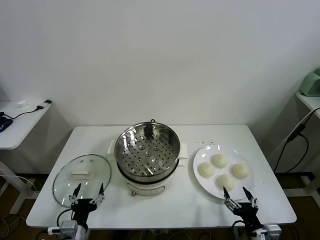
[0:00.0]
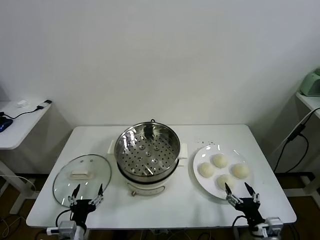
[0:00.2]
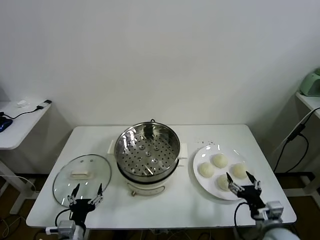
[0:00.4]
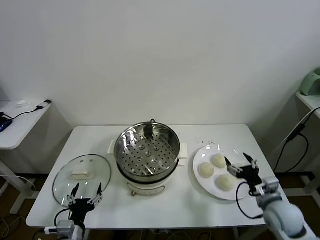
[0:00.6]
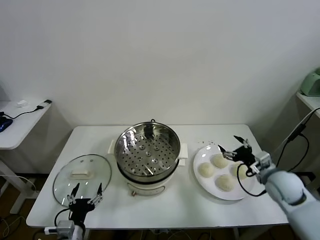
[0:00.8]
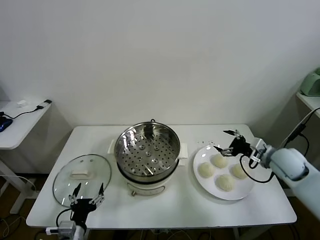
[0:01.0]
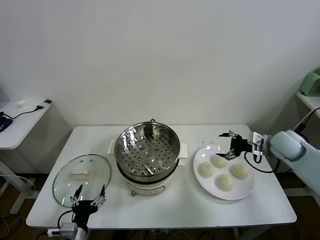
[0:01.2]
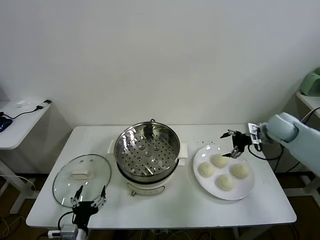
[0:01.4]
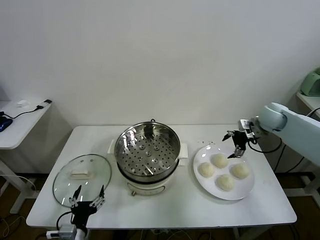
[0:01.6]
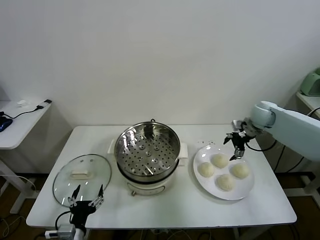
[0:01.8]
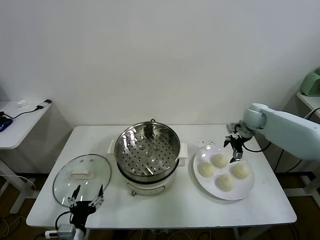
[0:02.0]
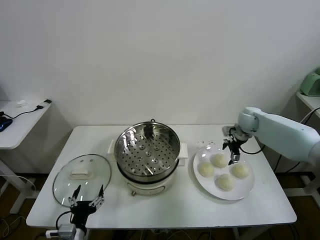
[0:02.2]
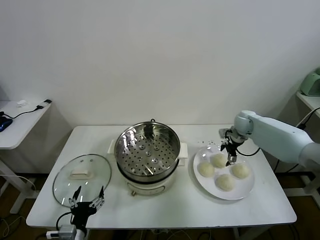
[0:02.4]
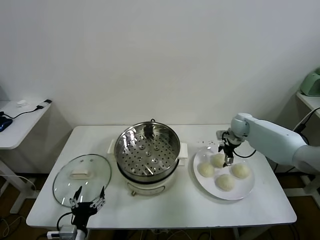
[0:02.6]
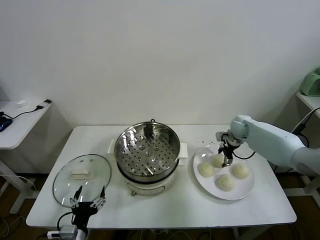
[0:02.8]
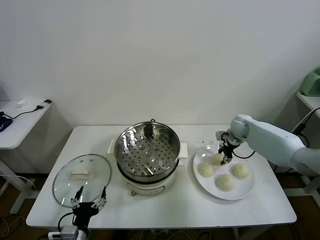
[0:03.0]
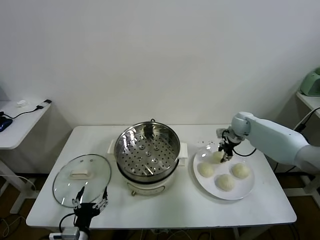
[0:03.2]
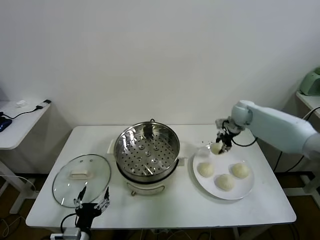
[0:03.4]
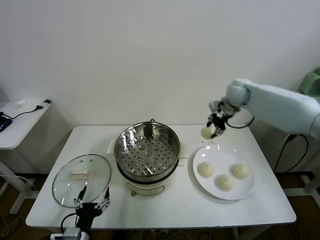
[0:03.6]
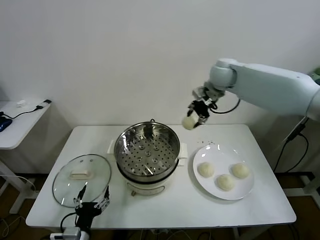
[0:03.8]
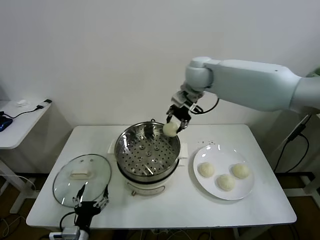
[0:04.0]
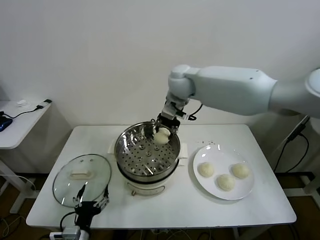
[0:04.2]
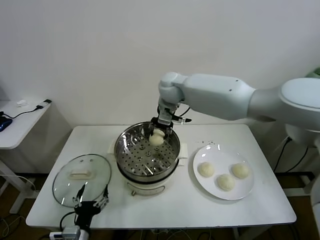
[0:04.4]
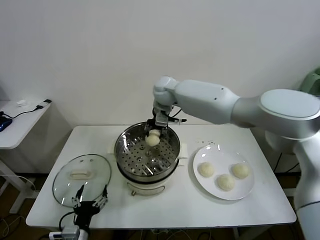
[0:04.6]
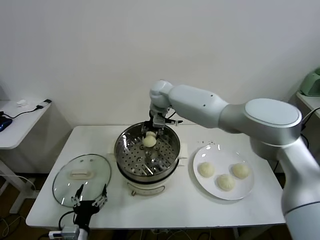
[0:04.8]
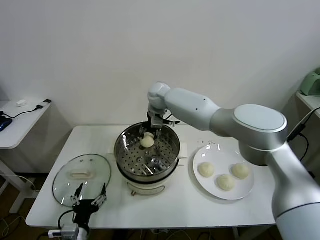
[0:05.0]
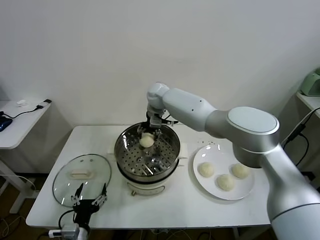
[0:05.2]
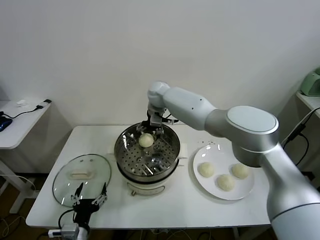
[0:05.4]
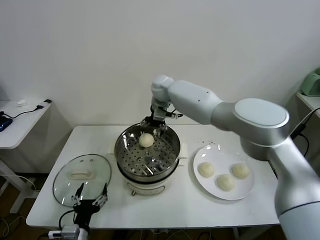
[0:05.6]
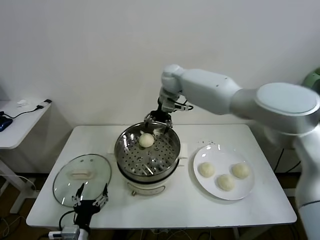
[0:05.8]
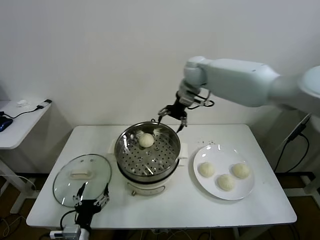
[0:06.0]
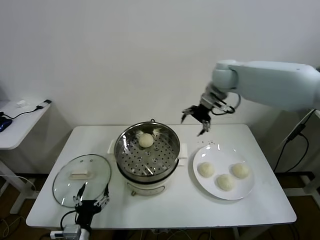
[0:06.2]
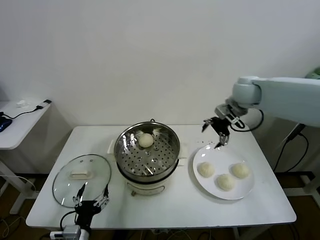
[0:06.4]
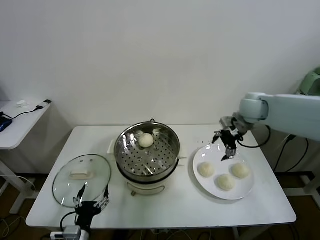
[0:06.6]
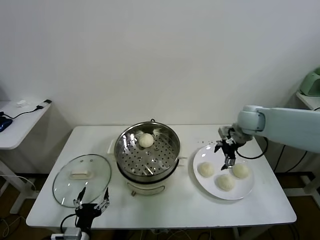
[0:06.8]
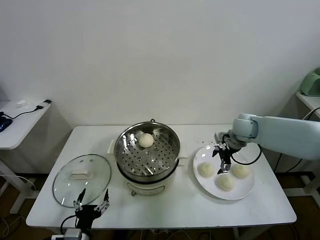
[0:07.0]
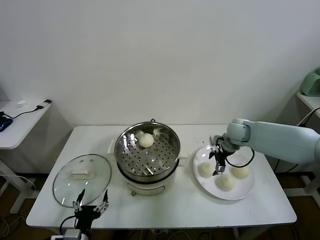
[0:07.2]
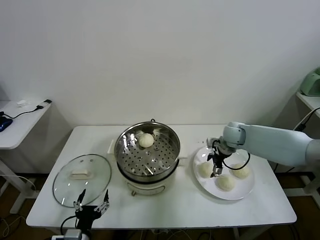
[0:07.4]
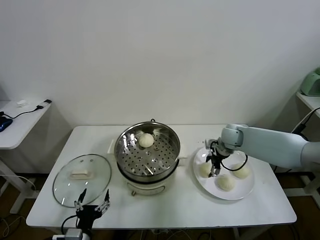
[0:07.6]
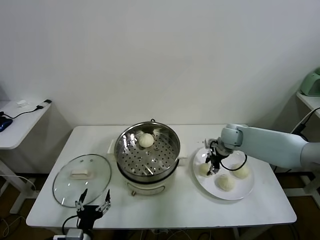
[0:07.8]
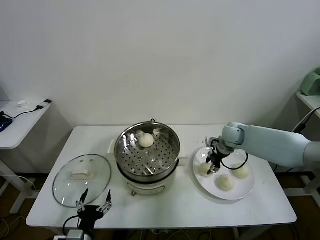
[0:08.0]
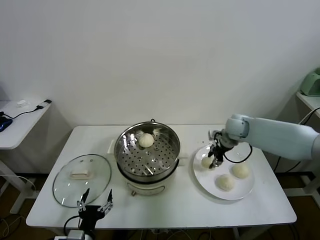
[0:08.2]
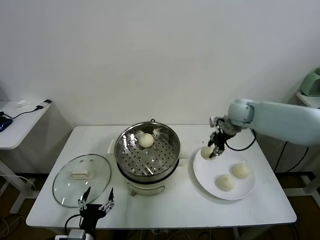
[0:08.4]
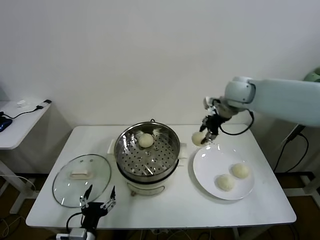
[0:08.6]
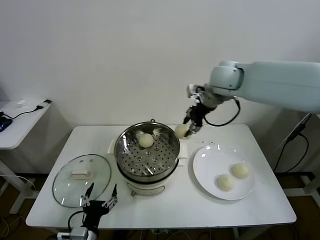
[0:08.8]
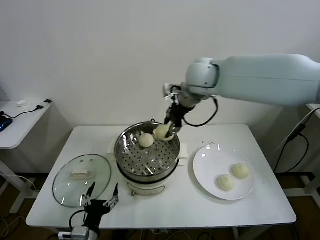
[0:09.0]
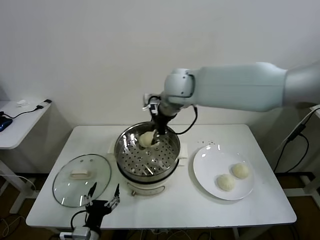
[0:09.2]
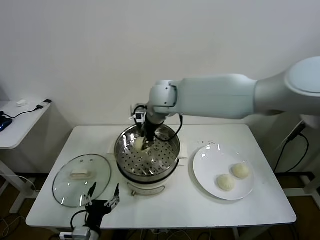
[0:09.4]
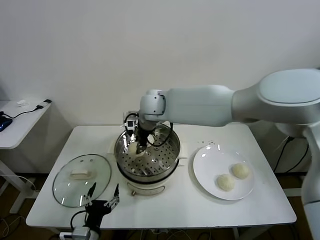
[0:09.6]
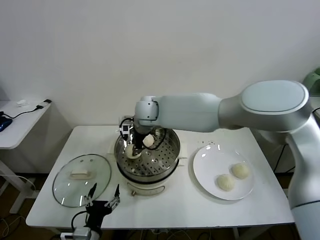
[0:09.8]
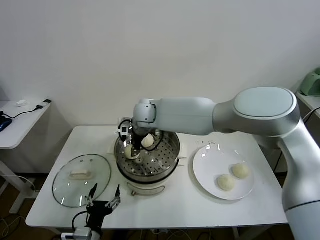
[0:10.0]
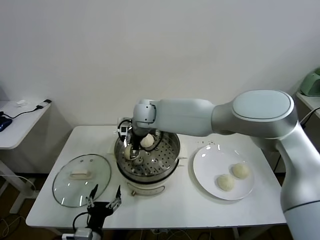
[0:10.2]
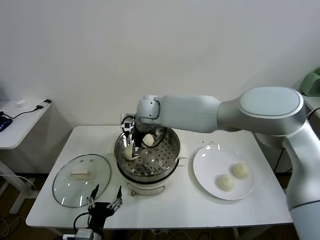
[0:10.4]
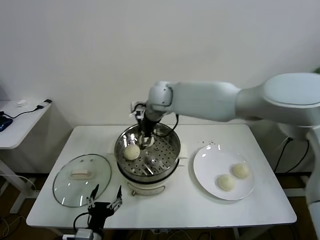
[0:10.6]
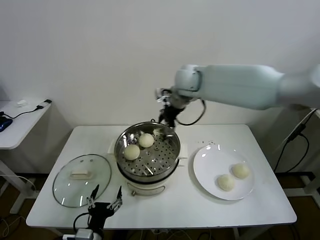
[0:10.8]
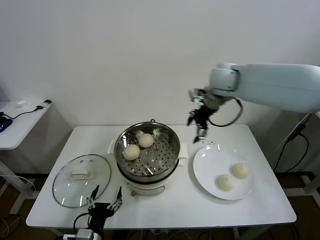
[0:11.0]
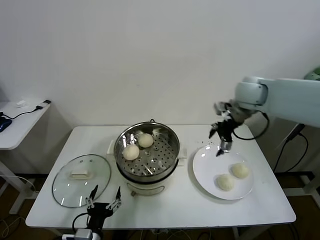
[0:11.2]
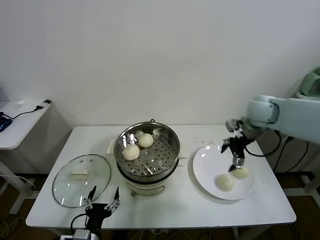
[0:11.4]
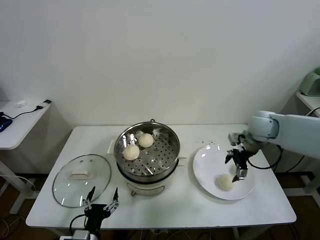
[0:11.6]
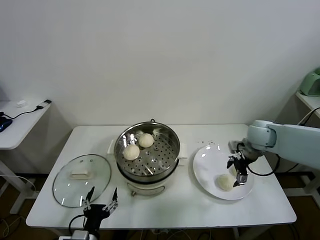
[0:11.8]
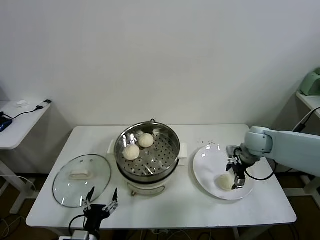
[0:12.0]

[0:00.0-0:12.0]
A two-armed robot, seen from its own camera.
Task of the whole recording: take steamed baozi put them in steamer.
Step, 0:00.0 to 0:02.8: Grasp the baozi in the plate with right gripper.
Step, 0:03.0 to 0:05.2: Place the baozi on the steamer with right gripper.
Step, 0:05.6 to 0:07.6: Grasp the baozi in the plate with right gripper.
Step, 0:07.8 to 0:10.2: Place the baozi on the steamer with right gripper.
0:01.6 to 0:03.0: The right gripper travels downward by about 10 cm, and closes its fingers.
0:03.0 to 0:04.4: The right gripper goes approximately 35 cm to the left and upward.
0:04.4 to 0:06.0: The right gripper shifts some 15 cm to the right, and opens its fingers.
0:06.0 to 0:07.6: The right gripper goes approximately 25 cm downward and to the right, and closes its fingers.
0:07.6 to 0:09.0: The right gripper goes roughly 35 cm upward and to the left, and closes.
0:09.0 to 0:10.4: The right gripper is displaced downward and to the left by roughly 15 cm, and opens its fingers.
0:10.4 to 0:12.0: The right gripper travels to the right by some 35 cm.

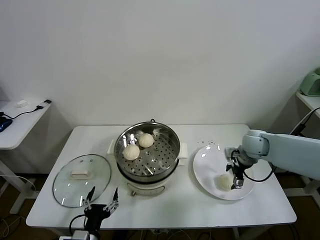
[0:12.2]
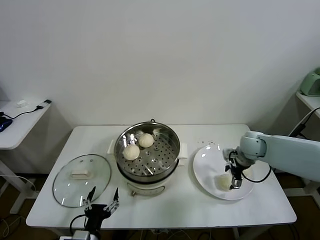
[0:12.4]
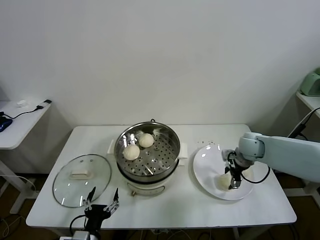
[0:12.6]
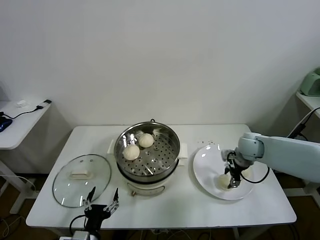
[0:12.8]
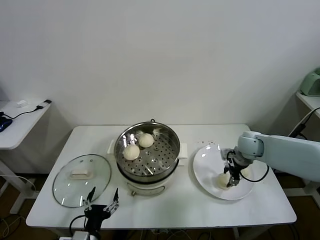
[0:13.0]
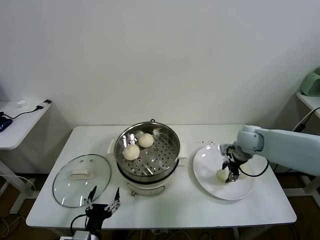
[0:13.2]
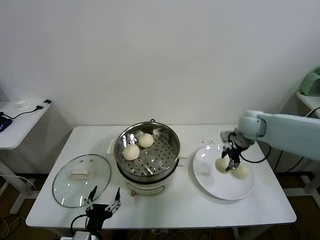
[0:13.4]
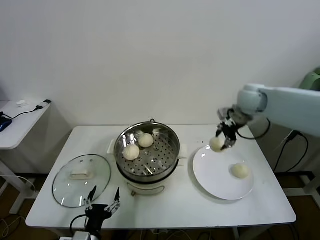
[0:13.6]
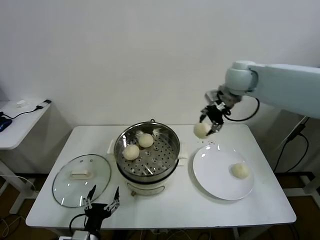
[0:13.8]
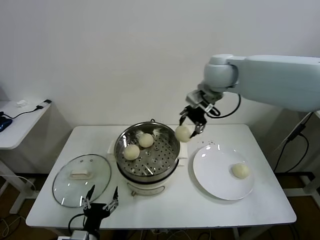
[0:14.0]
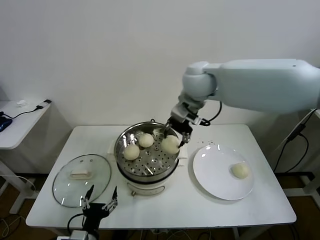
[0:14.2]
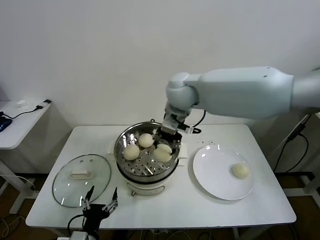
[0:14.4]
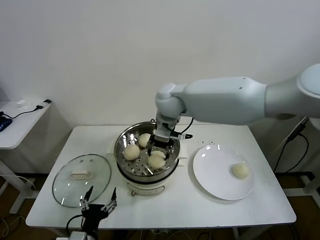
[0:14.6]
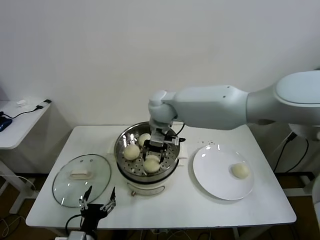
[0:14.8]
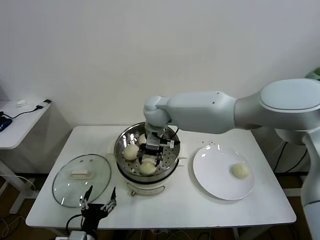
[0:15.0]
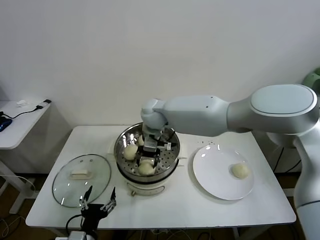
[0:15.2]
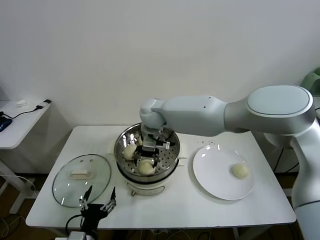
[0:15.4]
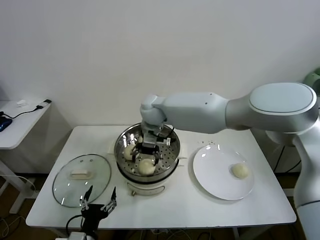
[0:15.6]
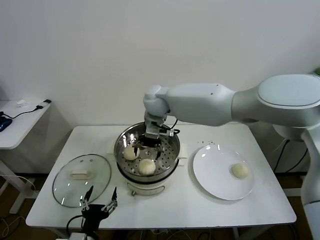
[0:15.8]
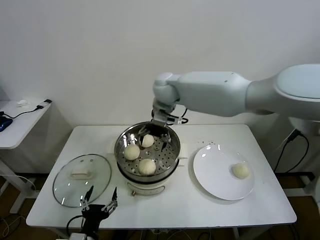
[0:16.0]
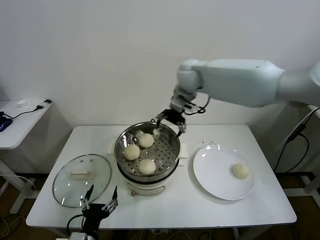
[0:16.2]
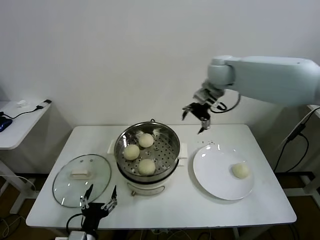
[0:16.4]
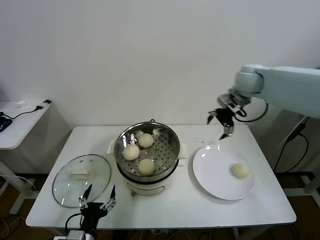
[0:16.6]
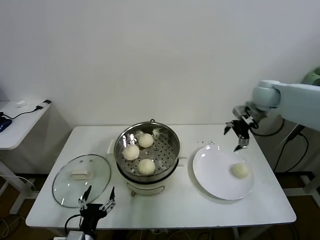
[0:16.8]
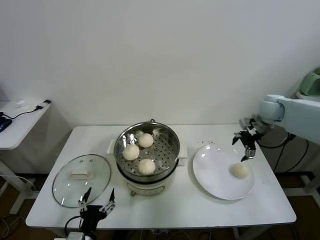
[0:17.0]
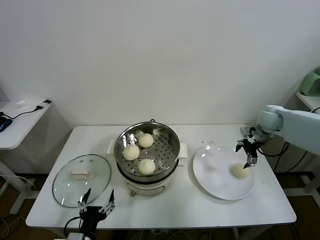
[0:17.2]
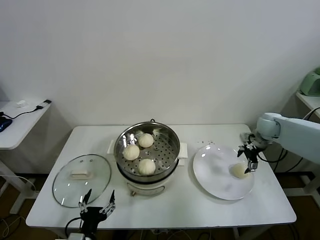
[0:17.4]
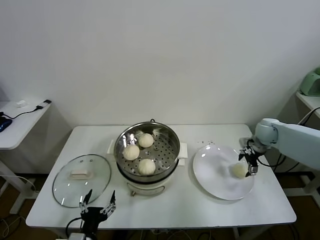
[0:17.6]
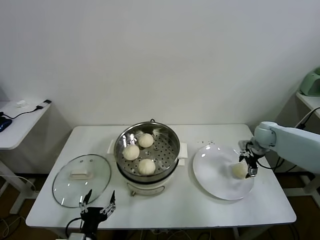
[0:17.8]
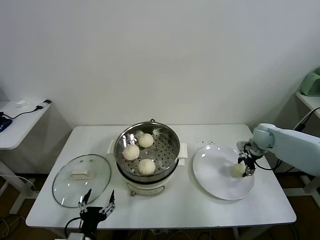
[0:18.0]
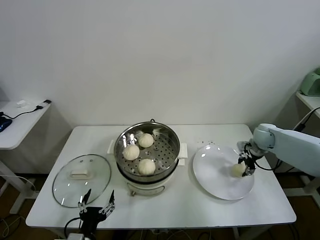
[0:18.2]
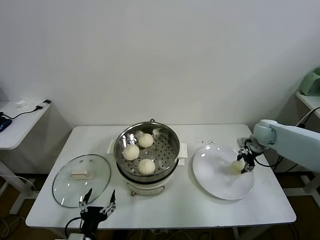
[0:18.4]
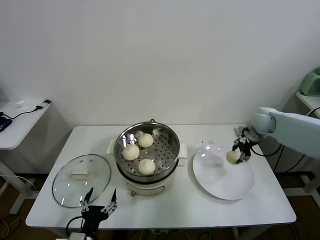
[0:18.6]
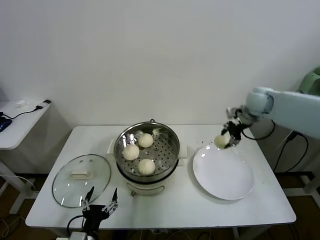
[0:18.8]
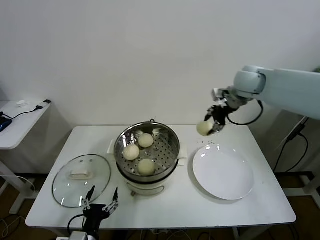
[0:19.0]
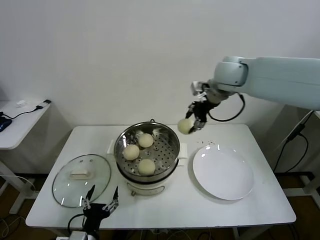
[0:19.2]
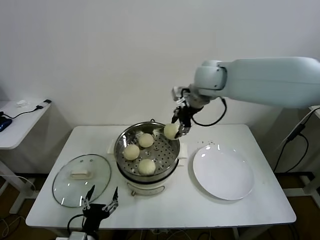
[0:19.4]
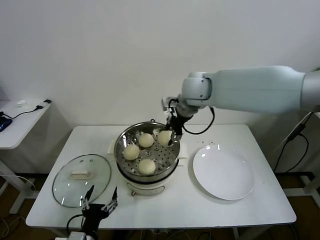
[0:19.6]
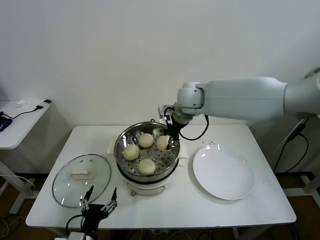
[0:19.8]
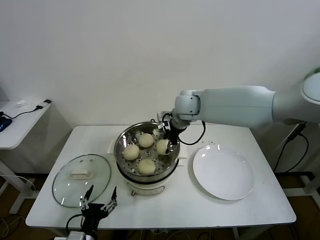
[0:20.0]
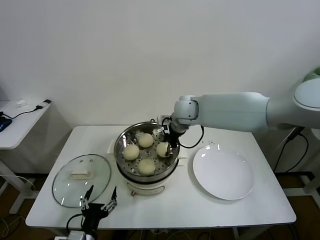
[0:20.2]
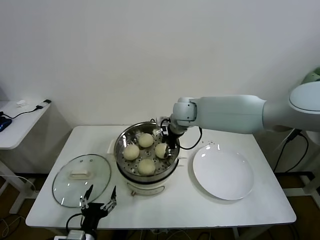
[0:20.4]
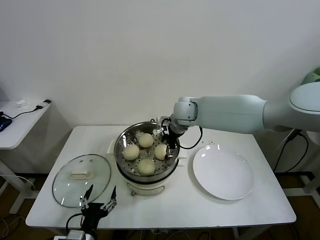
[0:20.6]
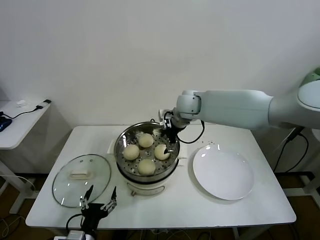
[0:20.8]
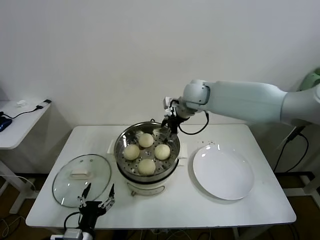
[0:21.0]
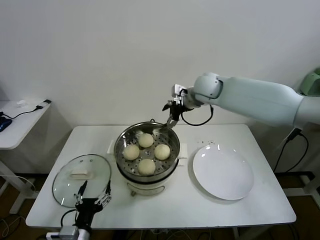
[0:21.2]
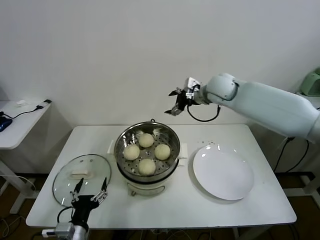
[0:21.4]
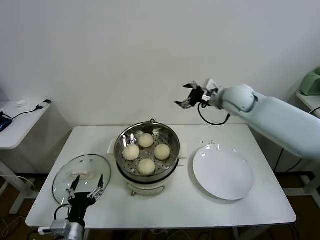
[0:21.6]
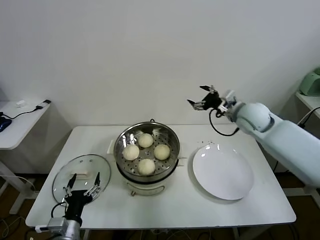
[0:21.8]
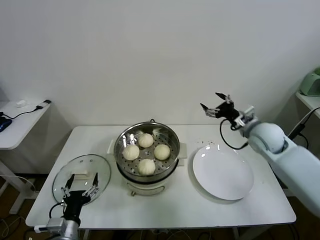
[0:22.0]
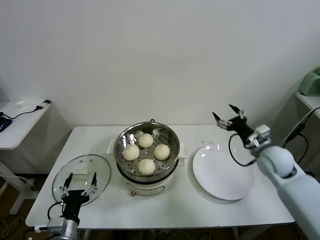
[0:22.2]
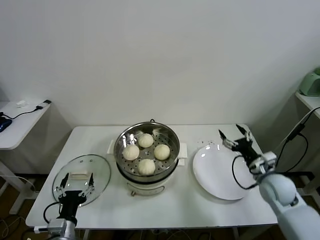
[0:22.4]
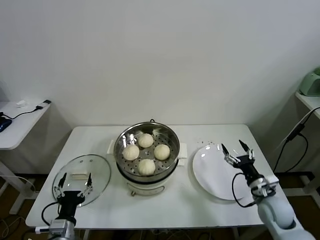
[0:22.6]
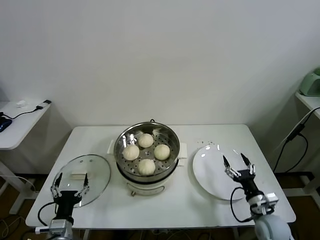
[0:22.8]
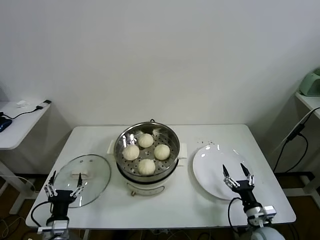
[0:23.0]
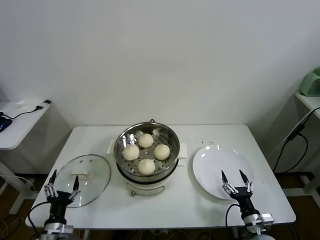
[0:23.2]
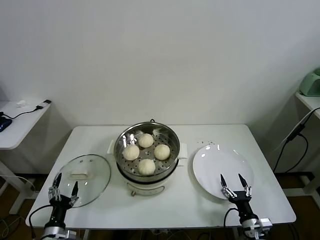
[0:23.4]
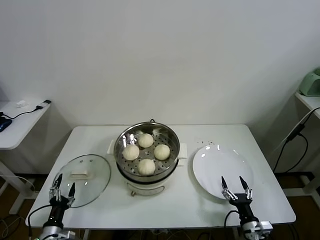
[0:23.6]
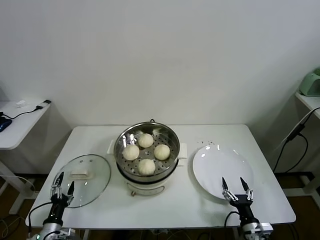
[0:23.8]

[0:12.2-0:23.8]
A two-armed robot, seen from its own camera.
Task of the whole recording: take steamed baozi put them in steamer.
Step, 0:12.8 to 0:15.4: Place the baozi on the steamer with right gripper.
Step, 0:15.6 to 0:17.8: Grasp the baozi in the plate with right gripper.
Step, 0:18.2 to 0:20.6: Place the baozi on the steamer with right gripper.
0:12.2 to 0:13.6: The right gripper is displaced upward by approximately 20 cm, and closes up.
0:13.6 to 0:15.0: The right gripper shifts roughly 30 cm to the left.
0:15.0 to 0:16.6: The right gripper heads to the right, covering roughly 30 cm, and opens up.
0:16.6 to 0:18.0: The right gripper heads downward and to the right, covering some 25 cm, and closes its fingers.
0:18.0 to 0:19.4: The right gripper travels to the left and upward by roughly 40 cm.
0:19.4 to 0:21.0: The right gripper moves downward, approximately 5 cm, and opens up.
0:21.0 to 0:22.4: The left gripper goes roughly 5 cm to the left. The right gripper is displaced to the right, downward and backward by approximately 40 cm.
0:22.4 to 0:23.8: The right gripper goes approximately 25 cm downward and backward. Meanwhile the left gripper is displaced downward and to the left by approximately 15 cm.
